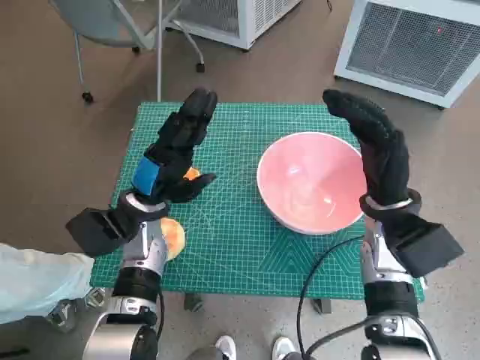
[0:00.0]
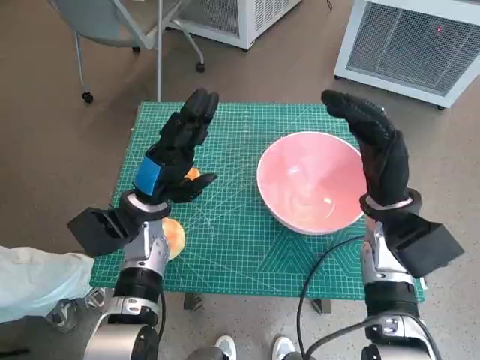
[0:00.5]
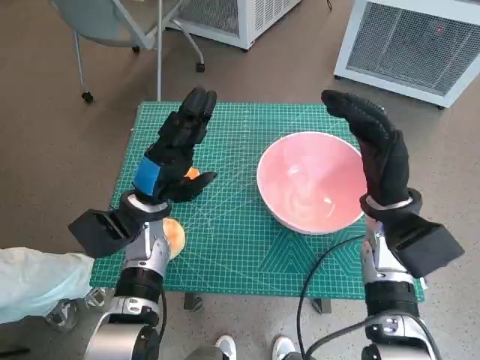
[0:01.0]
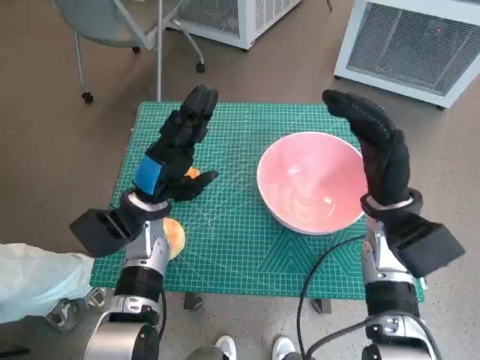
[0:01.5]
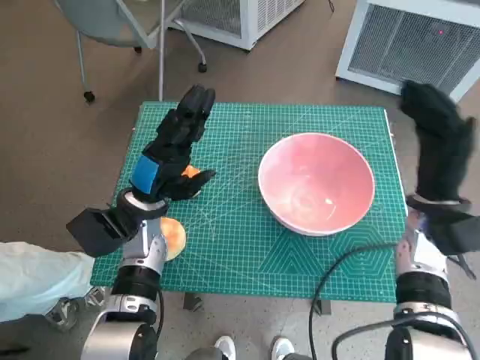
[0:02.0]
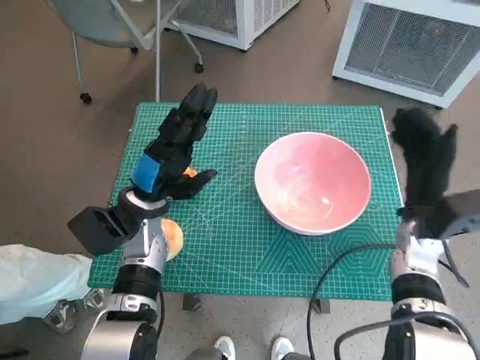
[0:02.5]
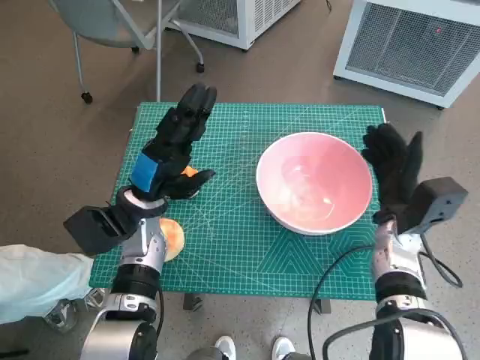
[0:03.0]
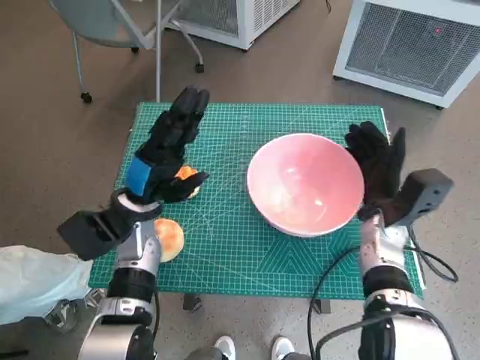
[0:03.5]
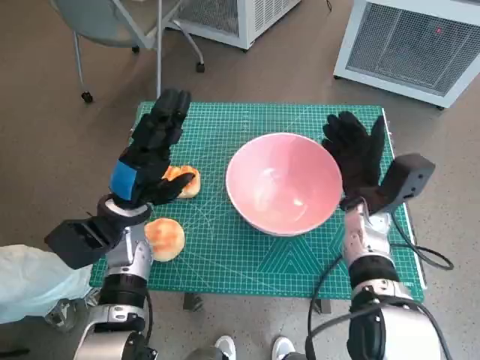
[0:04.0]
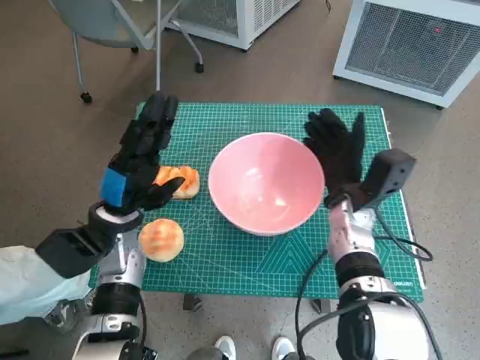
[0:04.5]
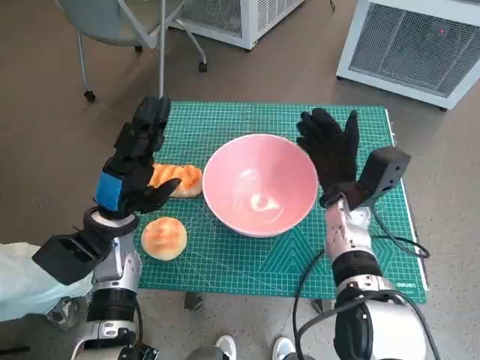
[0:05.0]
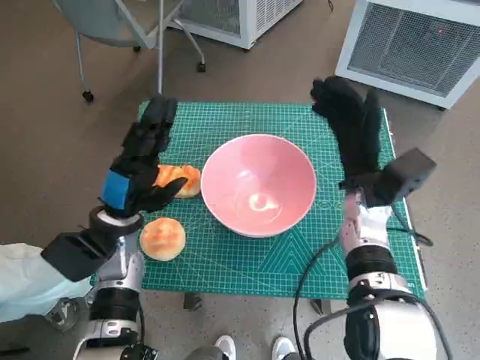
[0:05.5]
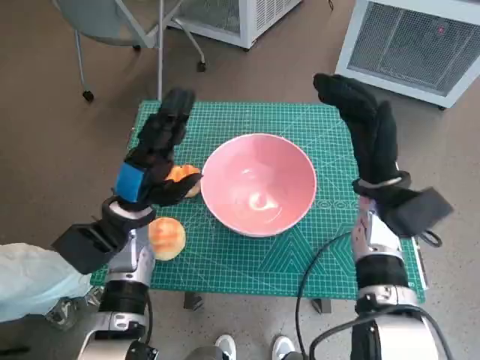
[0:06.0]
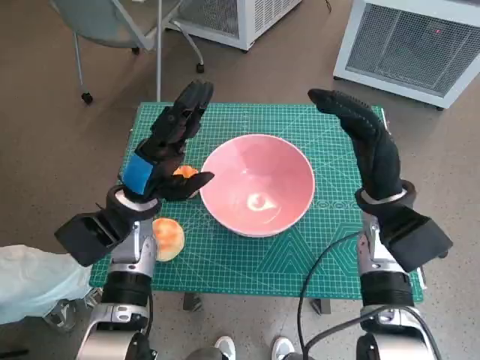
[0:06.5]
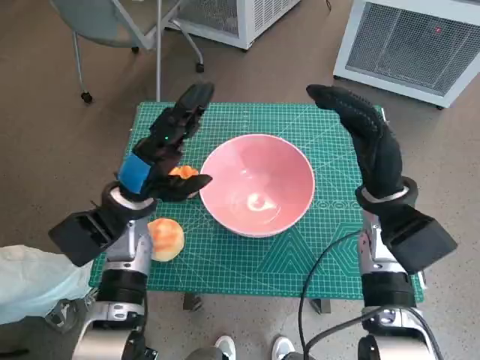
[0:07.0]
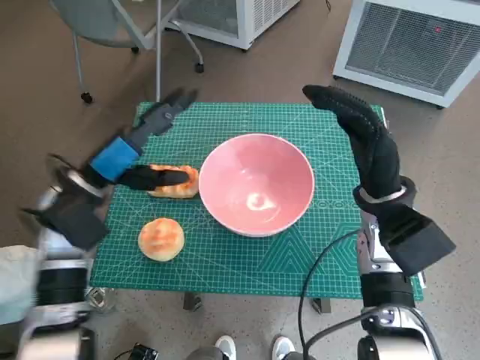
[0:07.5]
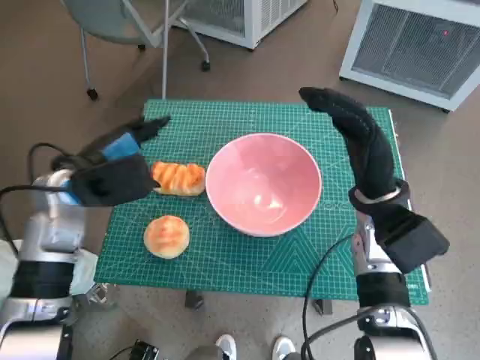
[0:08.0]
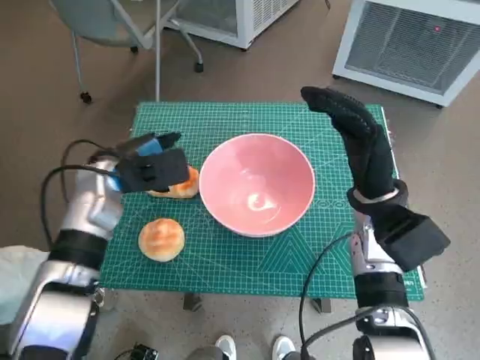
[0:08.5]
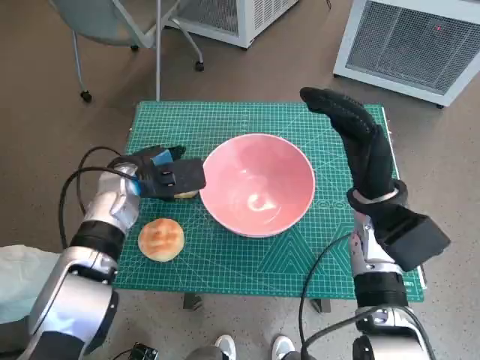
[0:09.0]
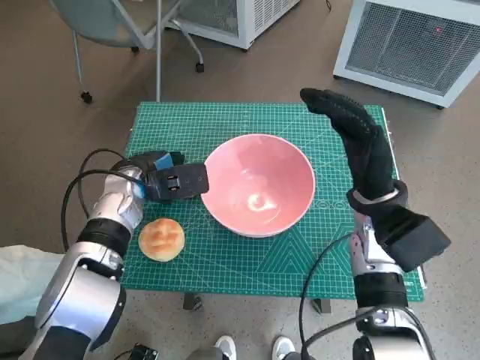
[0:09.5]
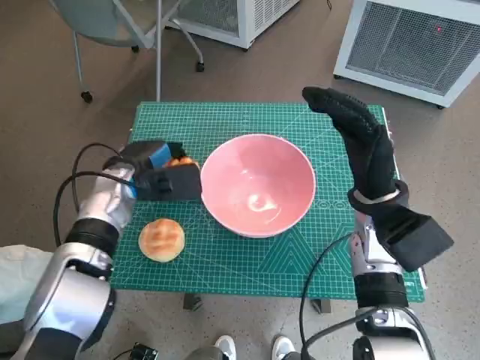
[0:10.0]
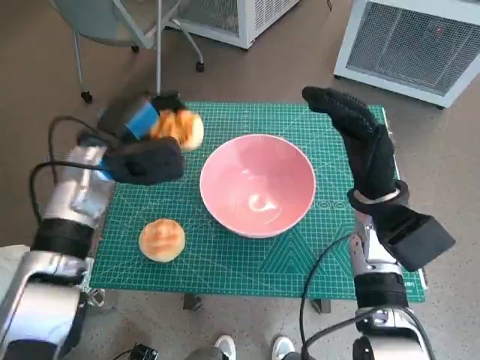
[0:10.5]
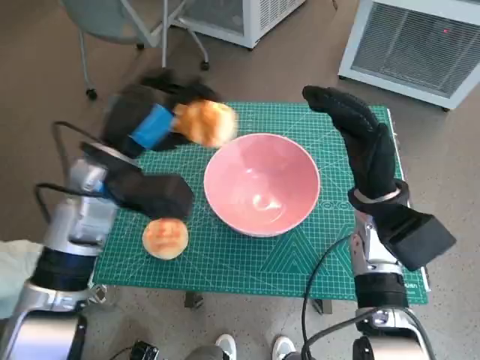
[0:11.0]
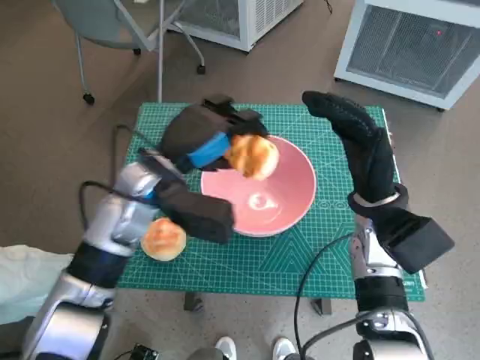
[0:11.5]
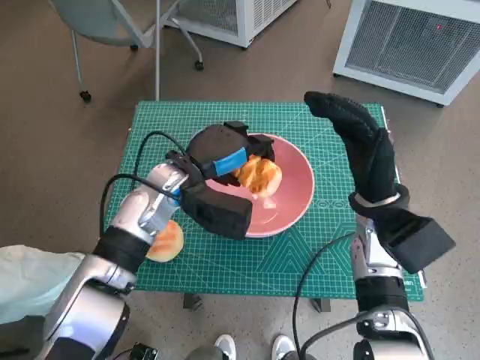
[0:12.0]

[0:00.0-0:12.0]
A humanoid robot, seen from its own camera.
Task of the whole recording: Push the bowl into the center of the table and put the bread into the bowl.
Step, 0:00.0 to 0:05.0: Move the pink bowl to the center of table with right hand.
Step, 0:05.5 to 0:09.5: Grasp the long bread with left hand.
0:02.0 to 0:04.0: The right hand is displaced to the left by some 5 cm.
0:04.0 to 0:06.0: The right hand heads upward, covering roughly 5 cm.
0:06.0 to 0:08.0: The left hand shifts some 10 cm upward and to the left.
0:08.0 to 0:10.0: The left hand is displaced downward by about 5 cm.
0:10.0 to 0:12.0: The left hand moves to the right, approximately 10 cm.

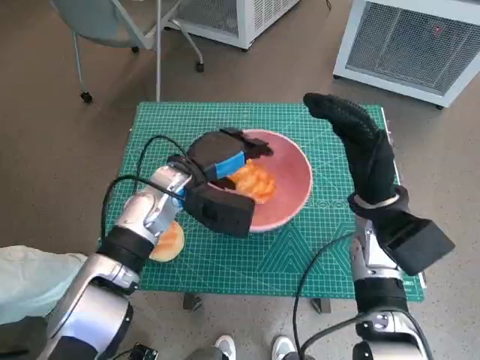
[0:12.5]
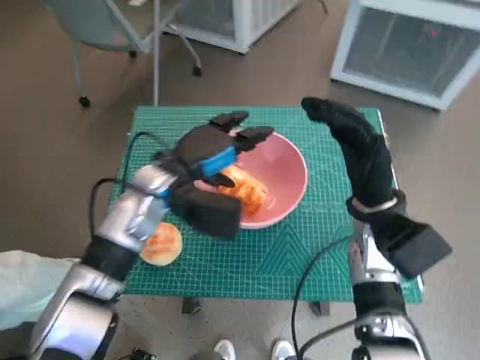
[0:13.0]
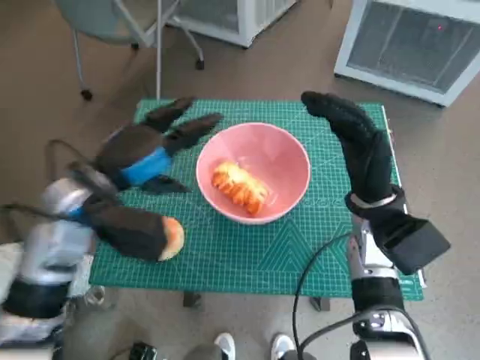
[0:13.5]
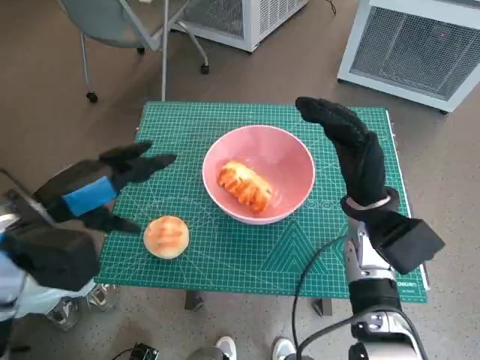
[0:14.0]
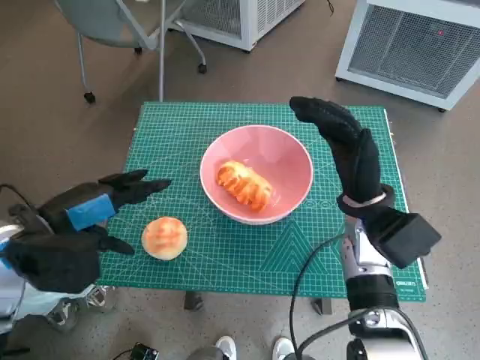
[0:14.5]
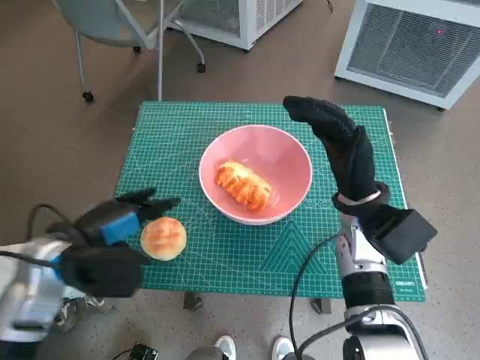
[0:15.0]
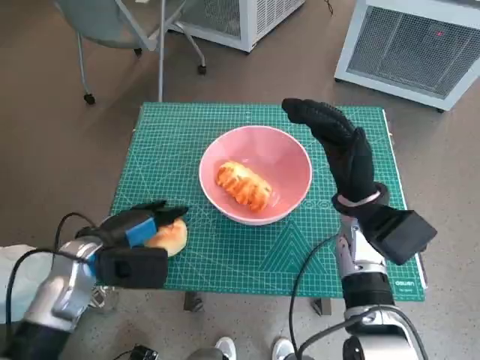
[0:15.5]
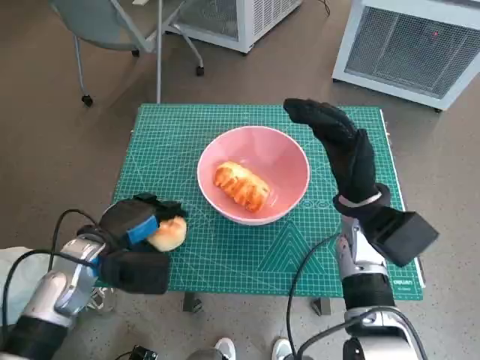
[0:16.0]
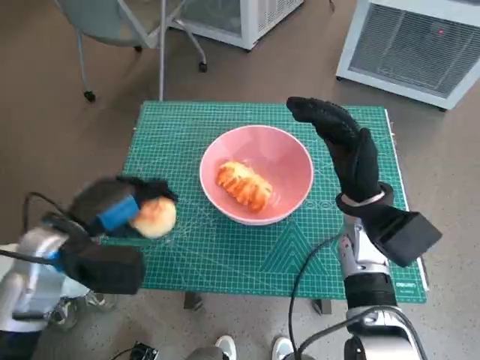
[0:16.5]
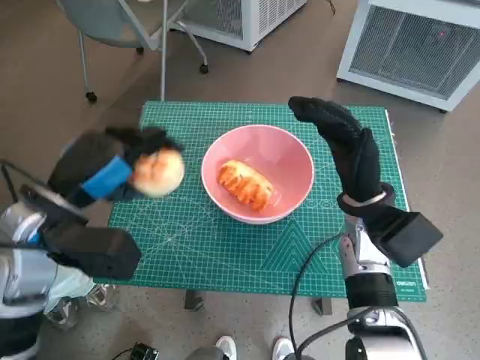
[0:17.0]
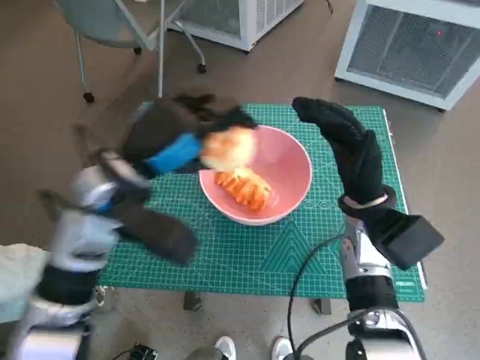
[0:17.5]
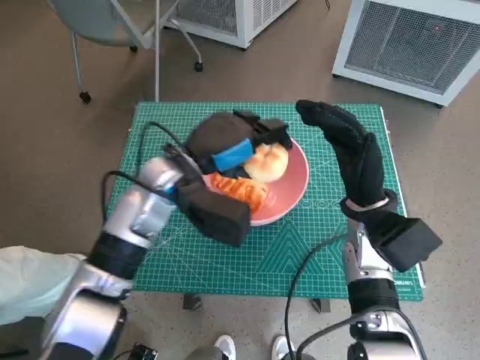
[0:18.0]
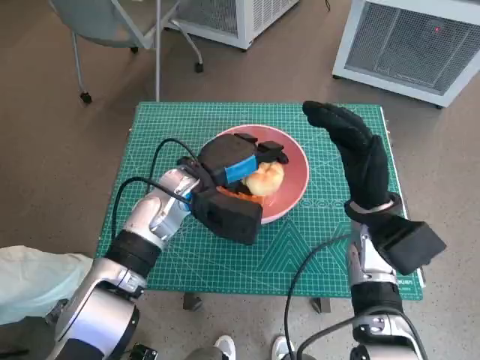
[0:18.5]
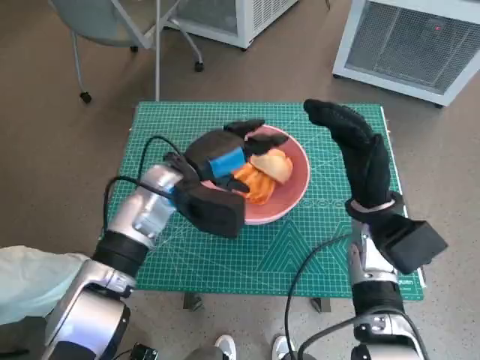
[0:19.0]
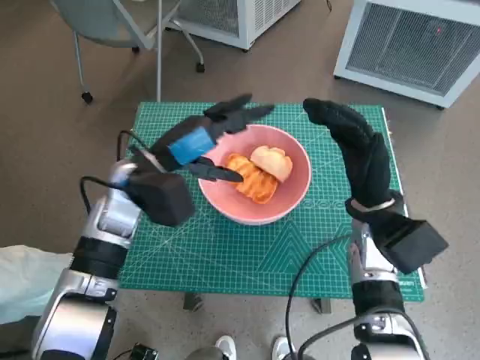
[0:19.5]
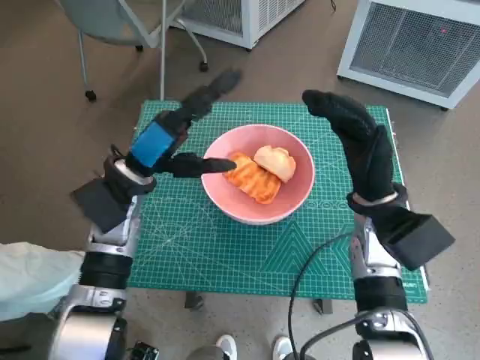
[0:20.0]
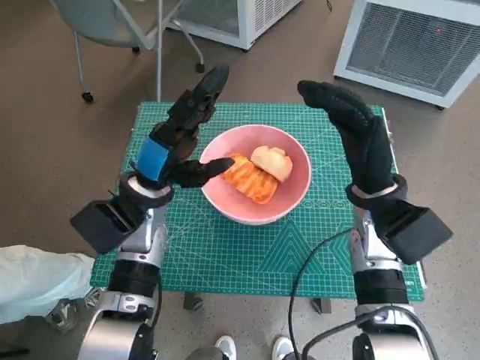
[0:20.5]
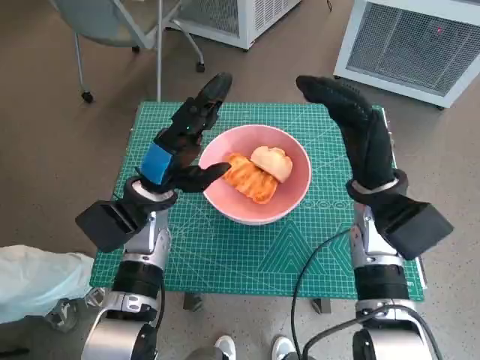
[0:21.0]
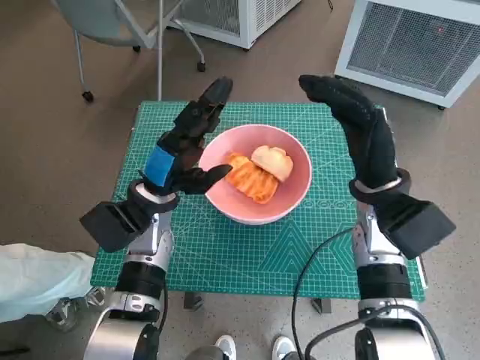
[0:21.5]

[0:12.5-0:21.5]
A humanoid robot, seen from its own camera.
Task of the whole recording: Push the bowl into the center of the table and put the bread into the bowl.
Step, 0:13.0 to 0:15.5: Grasp the round bread with left hand.
Step, 0:16.0 to 0:18.5: Place the round bread in pink bowl with left hand.
0:12.5 to 0:14.5: The left hand is displaced to the left and backward by about 20 cm.
0:14.5 to 0:17.0: The left hand moves roughly 10 cm downward and comes back.
0:17.0 to 0:19.5: The left hand travels forward and to the right by approximately 10 cm.
0:19.5 to 0:21.5: The left hand goes roughly 5 cm downward.
